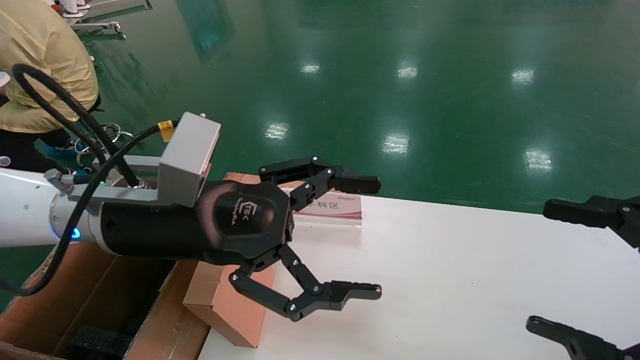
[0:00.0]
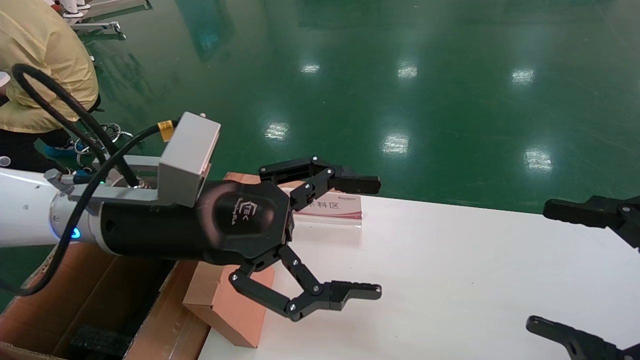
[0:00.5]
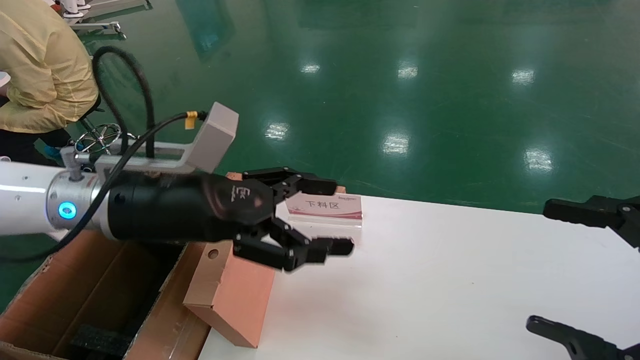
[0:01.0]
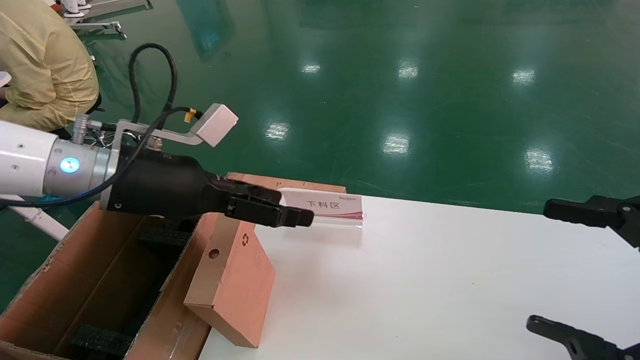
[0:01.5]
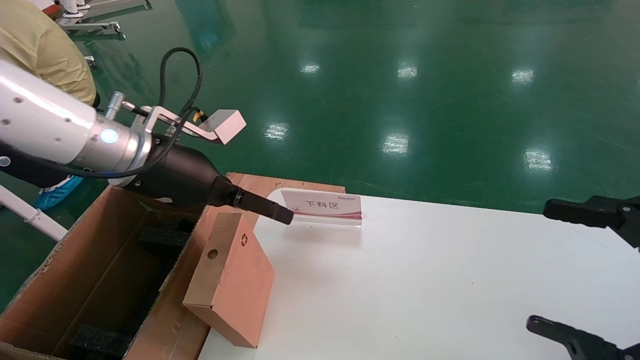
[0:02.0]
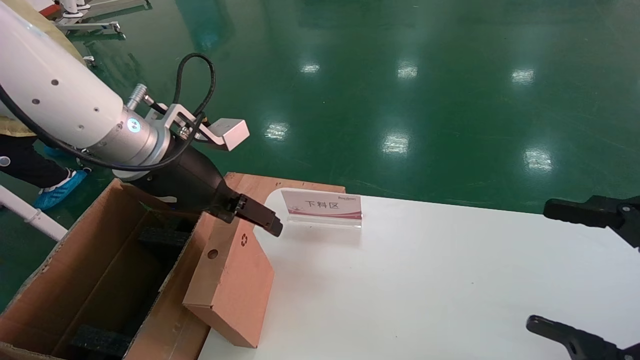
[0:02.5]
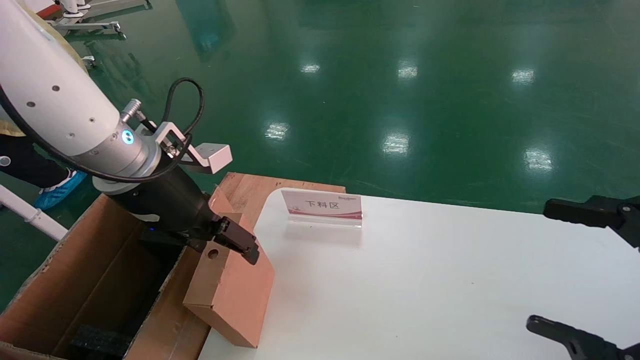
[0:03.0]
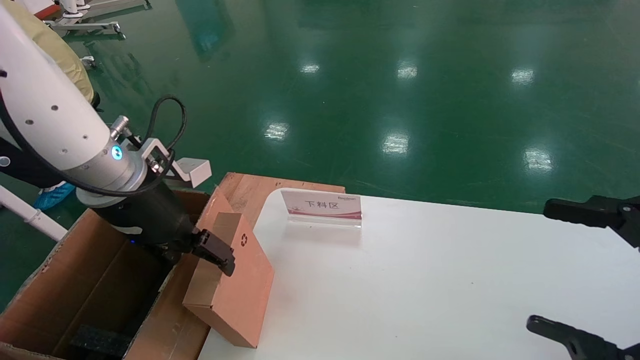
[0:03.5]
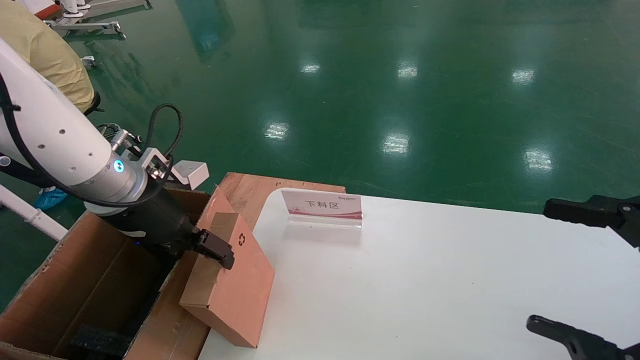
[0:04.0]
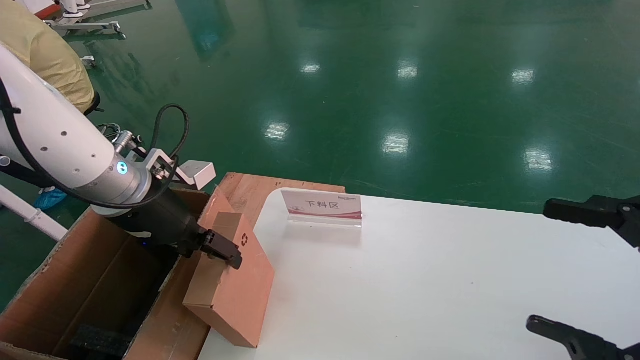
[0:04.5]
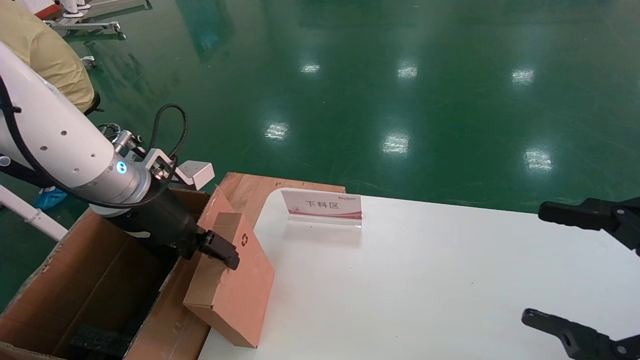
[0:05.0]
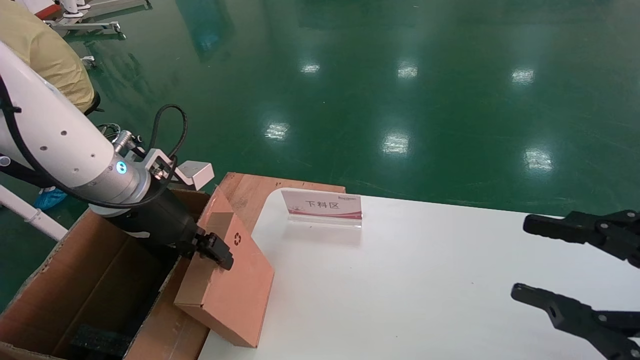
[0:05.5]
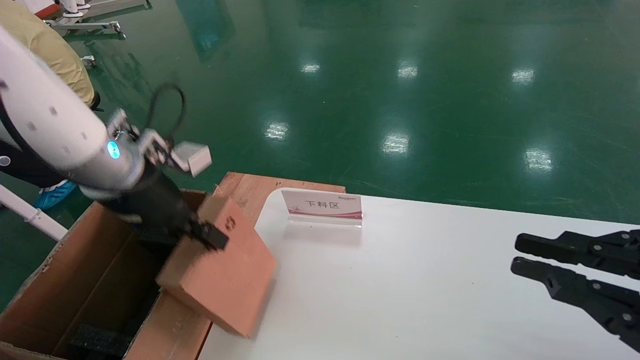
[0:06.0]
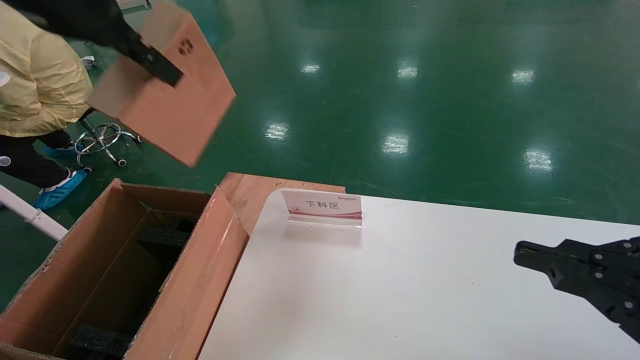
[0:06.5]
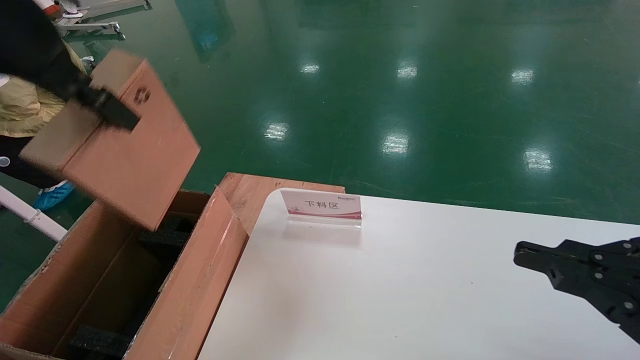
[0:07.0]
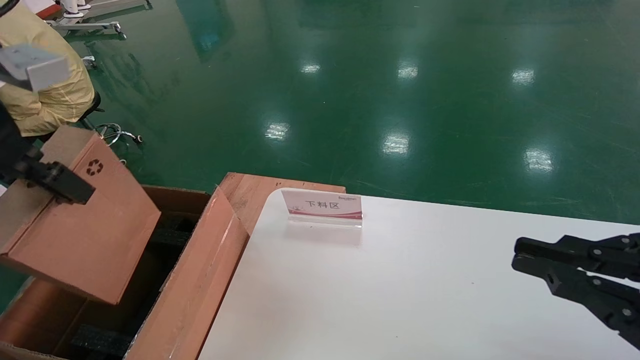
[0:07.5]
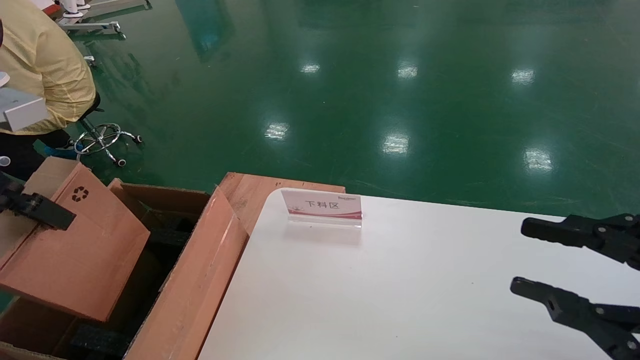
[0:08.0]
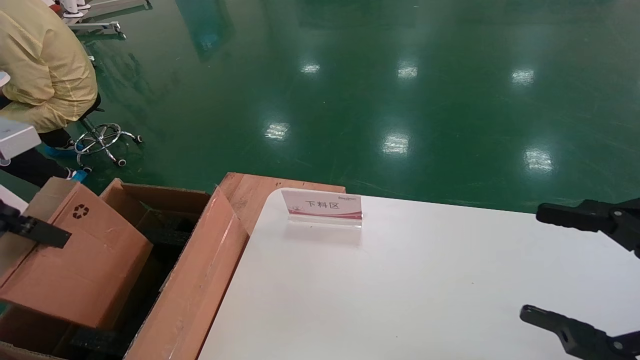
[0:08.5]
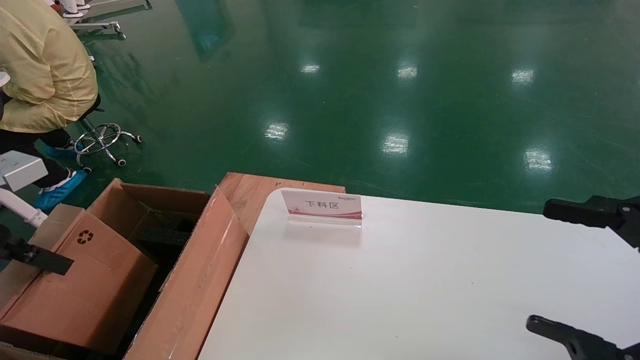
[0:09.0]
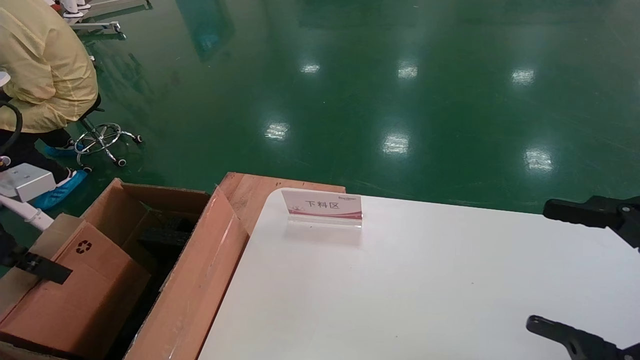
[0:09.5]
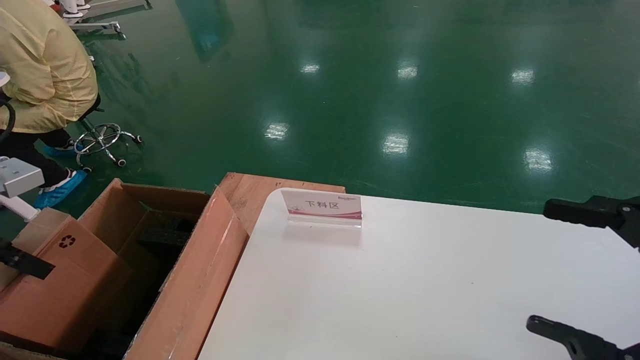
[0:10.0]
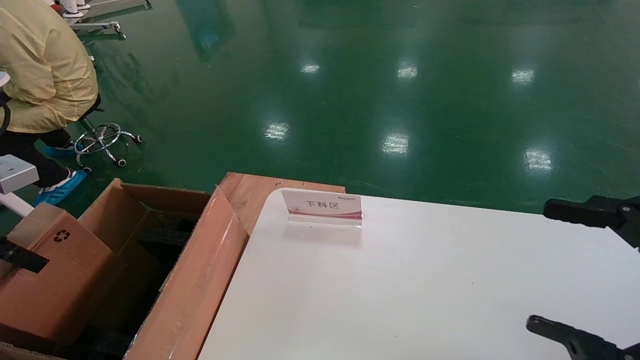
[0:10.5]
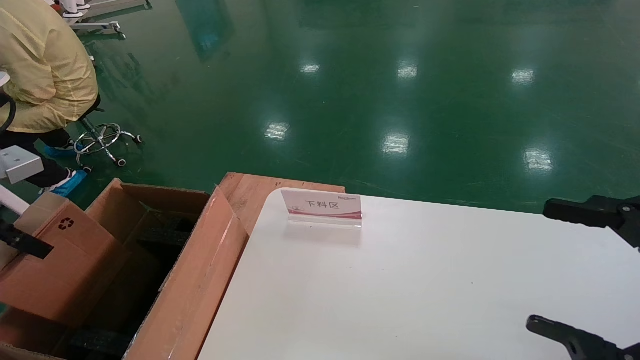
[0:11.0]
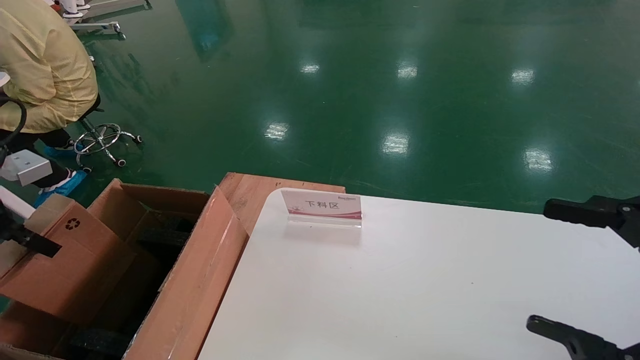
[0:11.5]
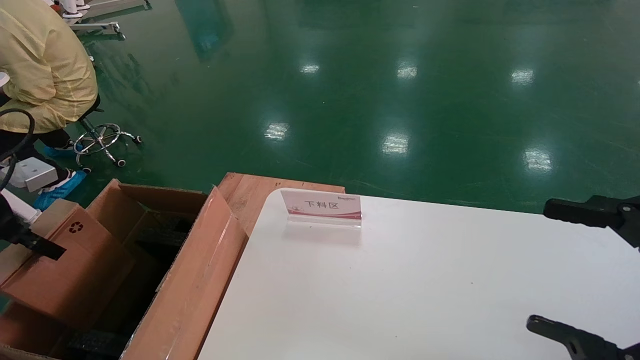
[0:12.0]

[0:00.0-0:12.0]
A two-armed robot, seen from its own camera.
Task of the whole recording: pick up the small cardboard box and load it into the large cardboard box.
Step, 0:01.5 to 0:05.5: Pick up the mouse and power cord box.
0:00.0 to 0:02.0: The left gripper shifts about 5 cm forward.
0:04.0 to 0:06.0: The left gripper shifts by approximately 5 cm, and closes its fingers. Meanwhile the right gripper closes.
0:06.0 to 0:08.0: The left gripper travels backward, to the left and upward by some 15 cm.
0:08.0 to 0:10.0: The right gripper opens up. The left gripper is displaced downward and to the left by approximately 15 cm.
0:10.0 to 0:12.0: The left gripper moves to the left and forward, approximately 10 cm.

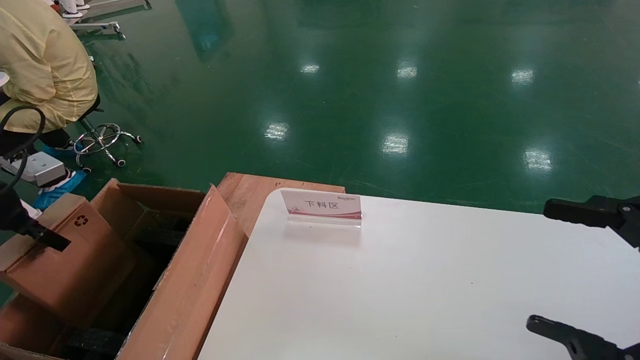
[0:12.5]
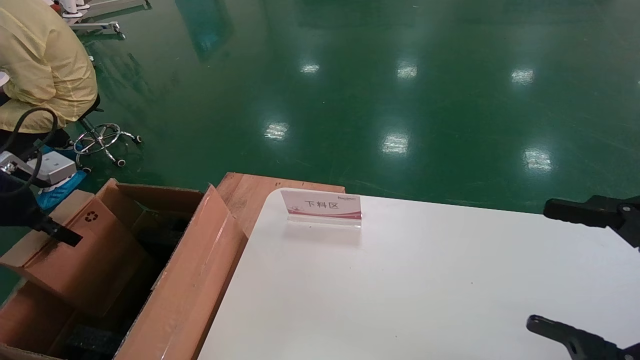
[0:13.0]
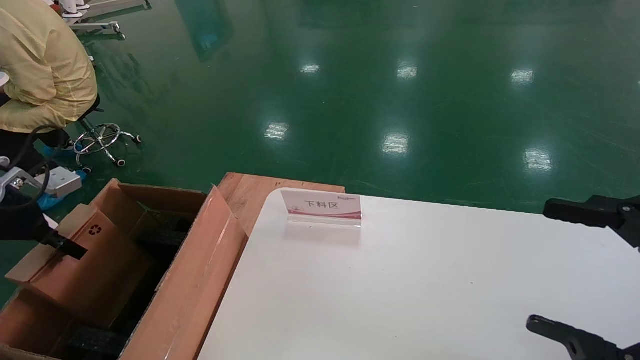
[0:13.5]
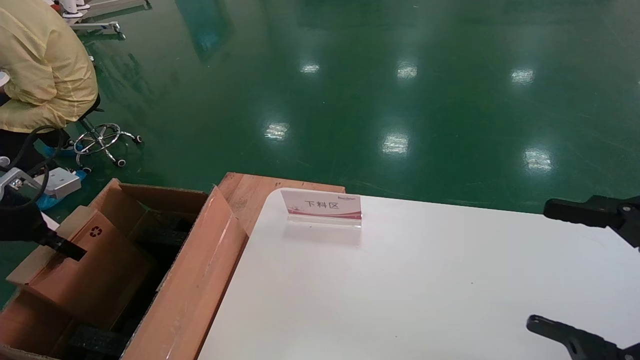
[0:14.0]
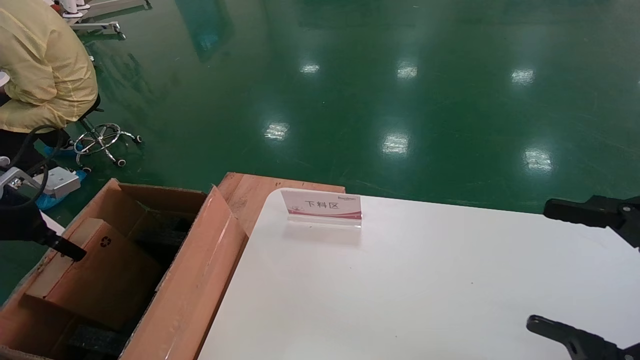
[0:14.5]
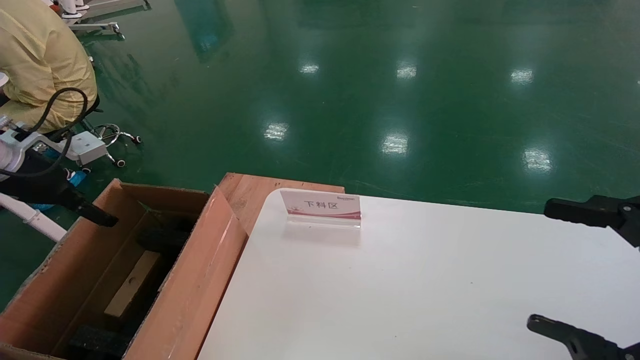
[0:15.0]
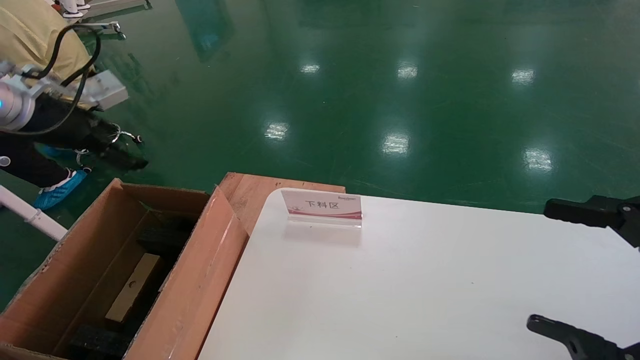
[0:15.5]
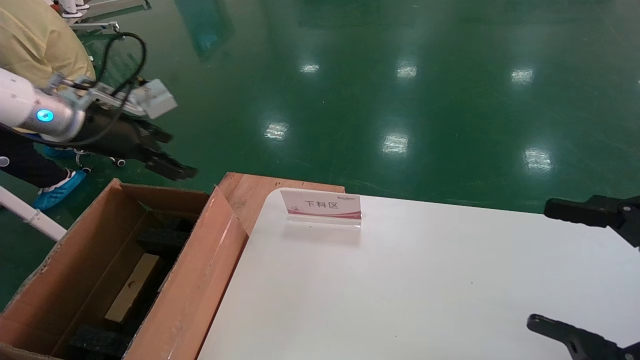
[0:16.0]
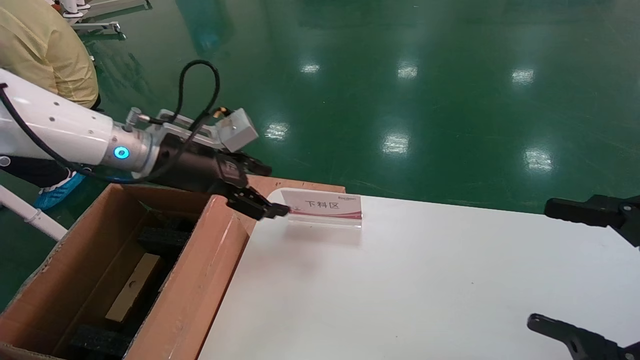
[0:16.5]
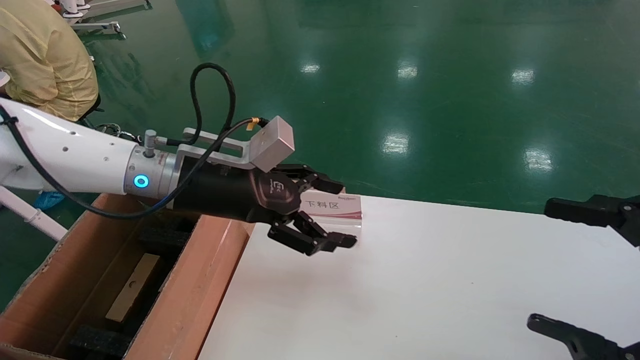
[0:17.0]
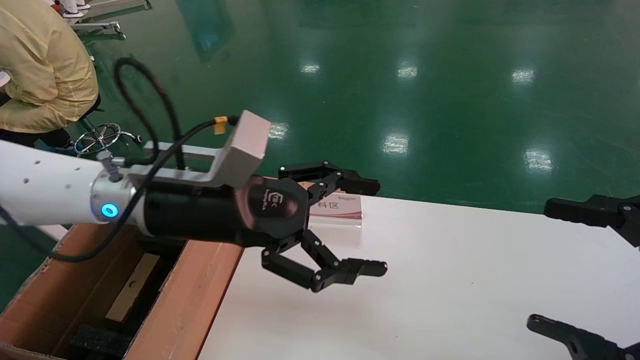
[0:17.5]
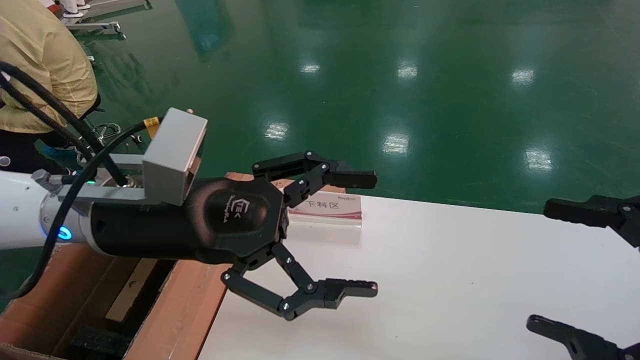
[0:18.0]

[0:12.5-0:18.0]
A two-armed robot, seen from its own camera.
Task of the whole recording: pick up the small cardboard box and load it into the large cardboard box.
Step, 0:12.5 to 0:14.5: Place the mouse and power cord box into the case.
0:12.5 to 0:14.5: The left gripper opens its fingers.
0:14.5 to 0:16.0: The left gripper travels to the right, upward and forward by about 20 cm, and opens its fingers.
0:16.0 to 0:18.0: The left gripper goes roughly 25 cm to the right and backward.

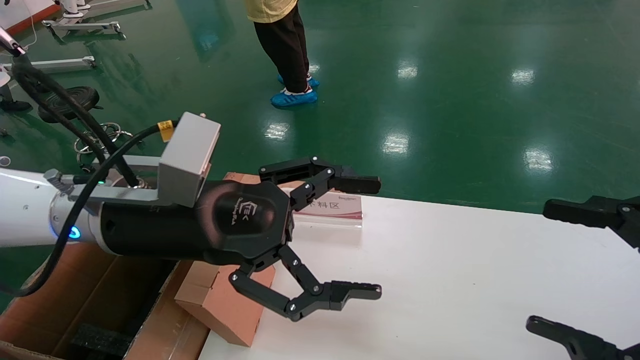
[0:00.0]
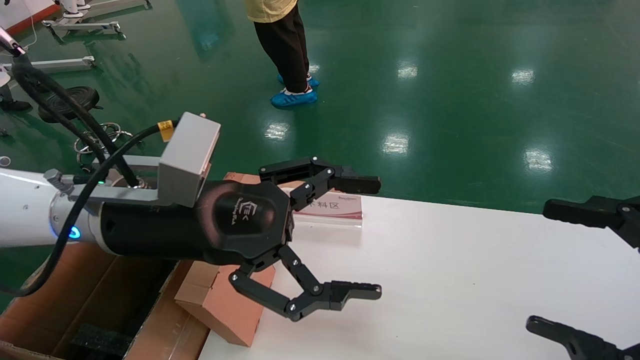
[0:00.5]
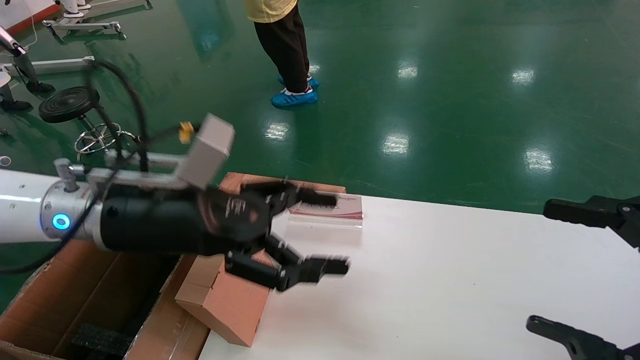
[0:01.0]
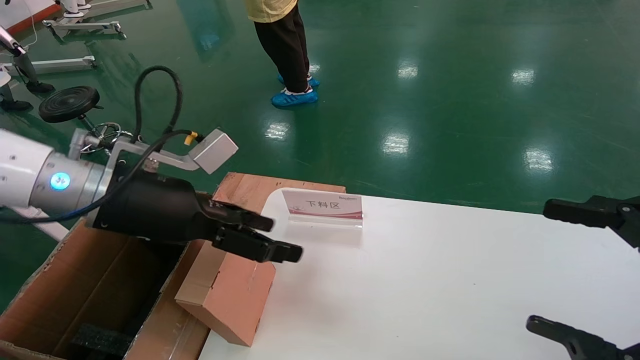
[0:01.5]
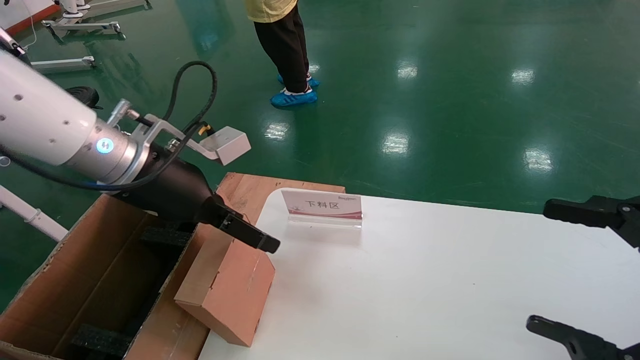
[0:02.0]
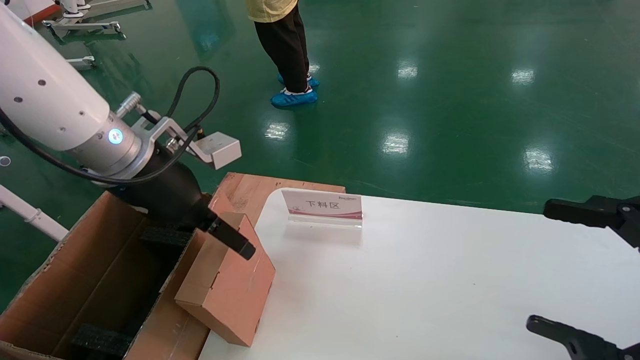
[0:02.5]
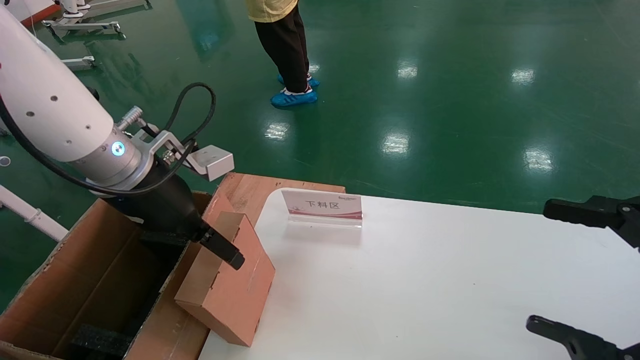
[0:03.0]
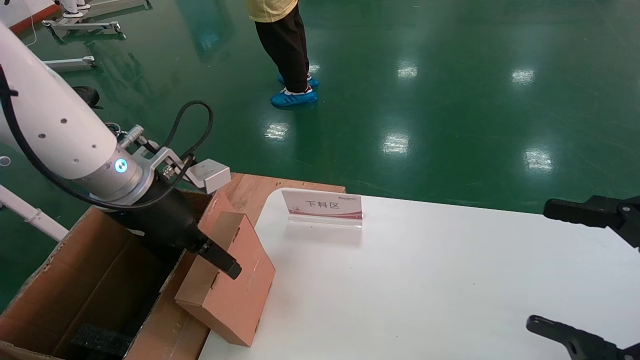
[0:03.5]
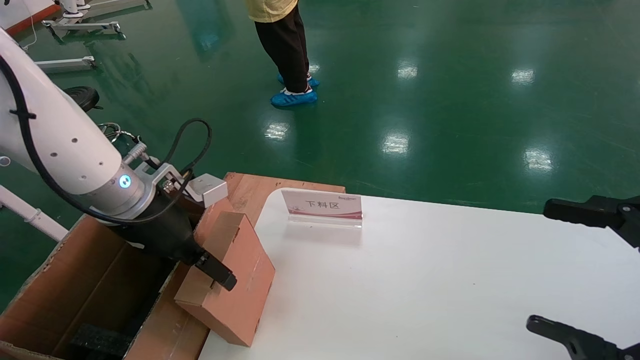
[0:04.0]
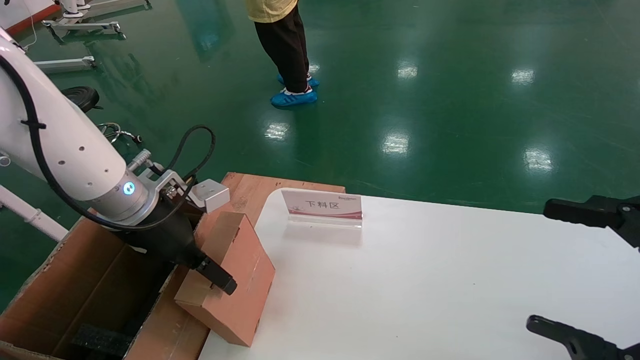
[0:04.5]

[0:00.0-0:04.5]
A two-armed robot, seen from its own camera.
Task of the whole recording: pick up the small cardboard box and load it into the large cardboard box.
0:00.0 to 0:02.0: The left gripper goes about 5 cm forward.
0:02.0 to 0:04.5: The left gripper travels downward by some 5 cm.
